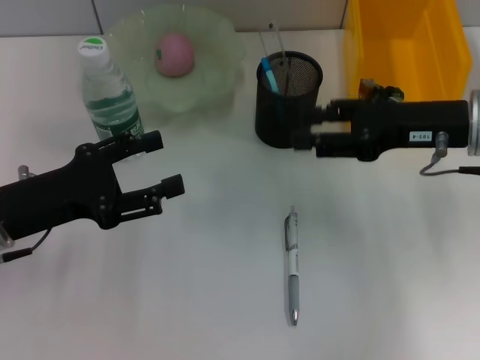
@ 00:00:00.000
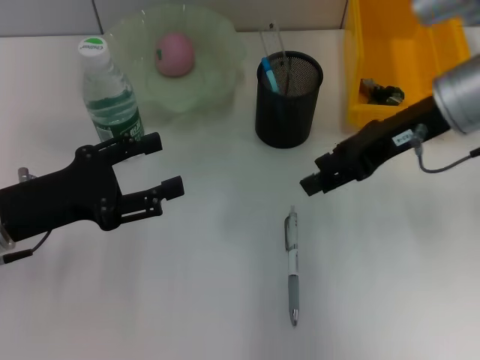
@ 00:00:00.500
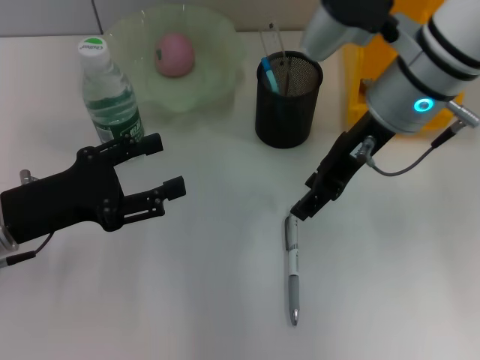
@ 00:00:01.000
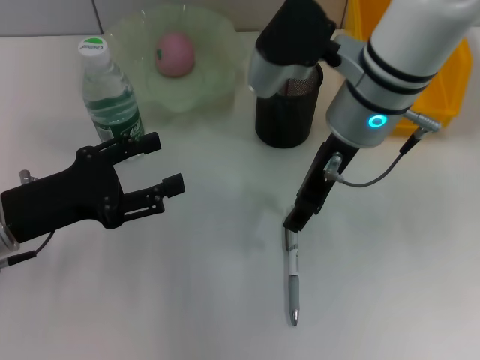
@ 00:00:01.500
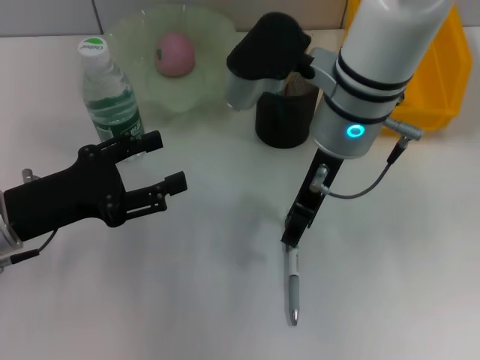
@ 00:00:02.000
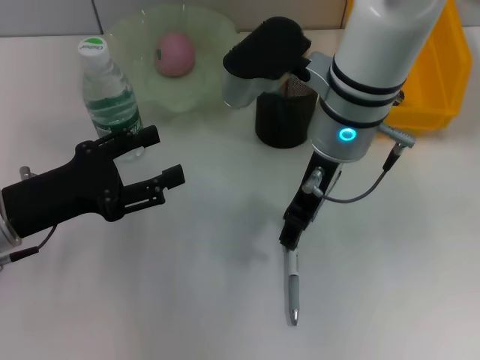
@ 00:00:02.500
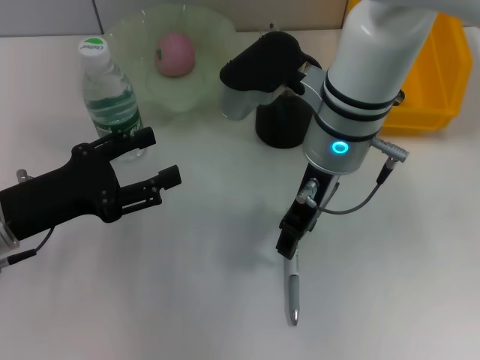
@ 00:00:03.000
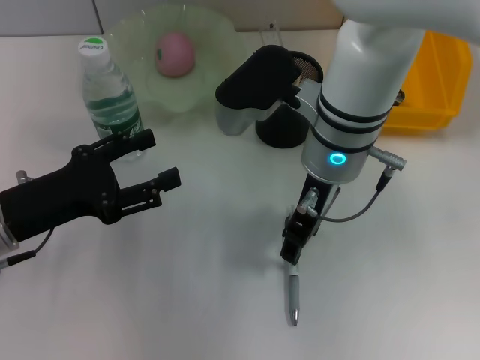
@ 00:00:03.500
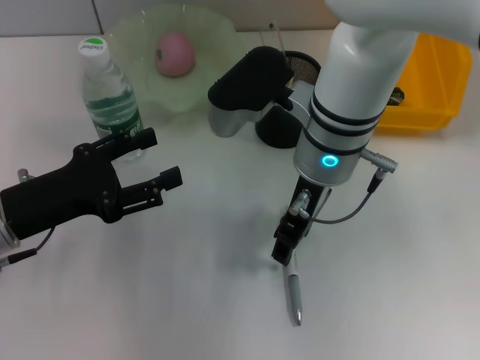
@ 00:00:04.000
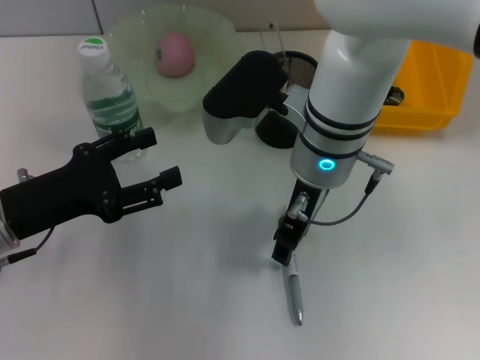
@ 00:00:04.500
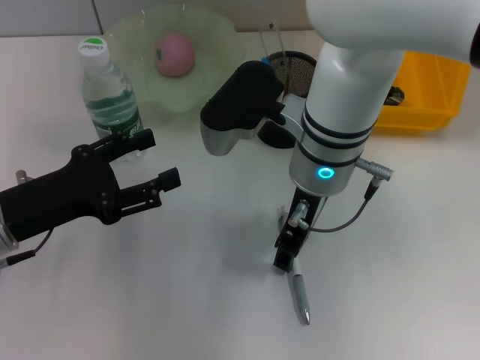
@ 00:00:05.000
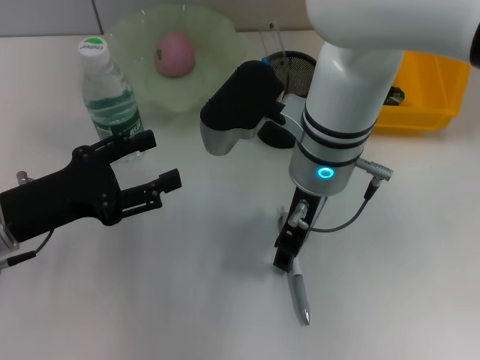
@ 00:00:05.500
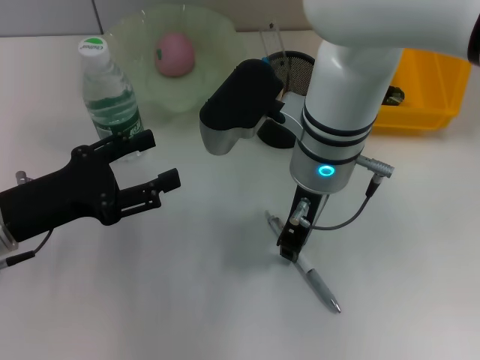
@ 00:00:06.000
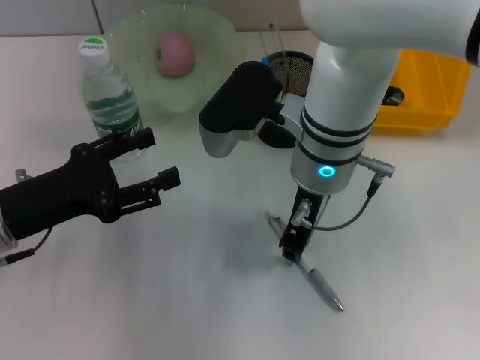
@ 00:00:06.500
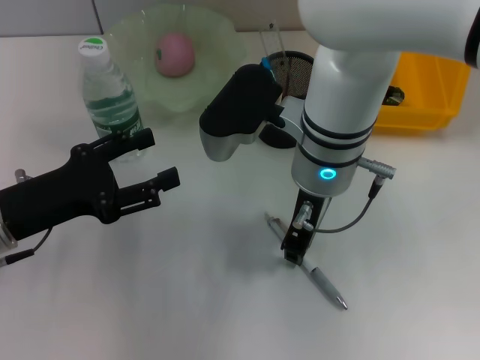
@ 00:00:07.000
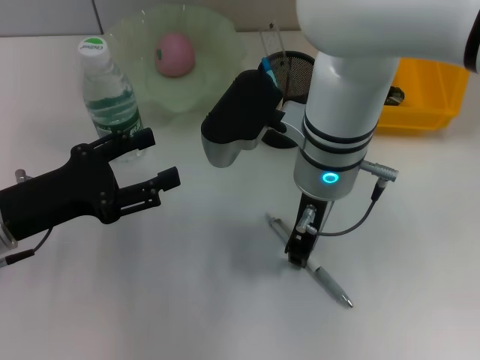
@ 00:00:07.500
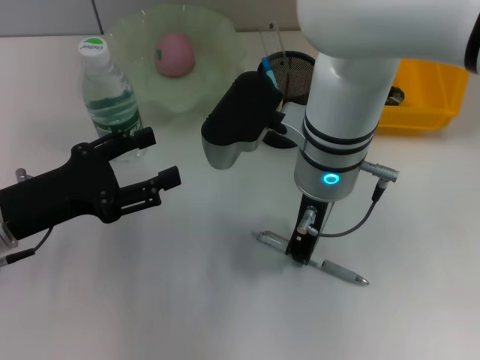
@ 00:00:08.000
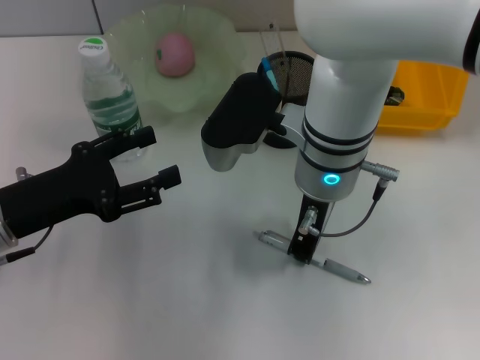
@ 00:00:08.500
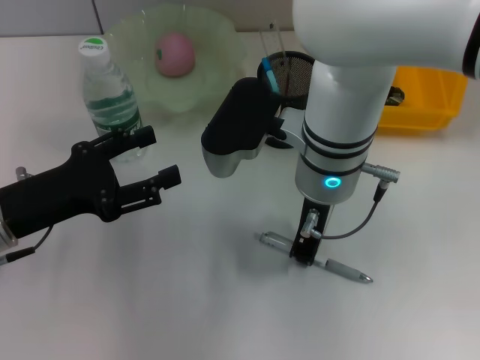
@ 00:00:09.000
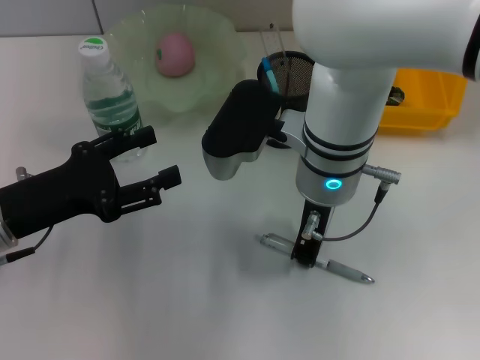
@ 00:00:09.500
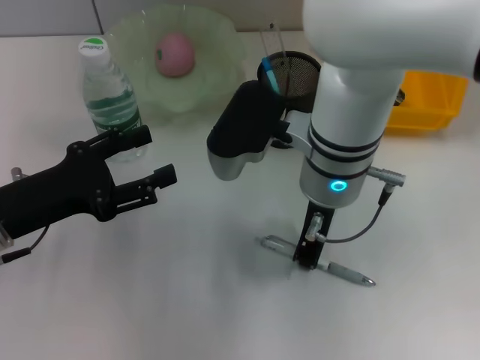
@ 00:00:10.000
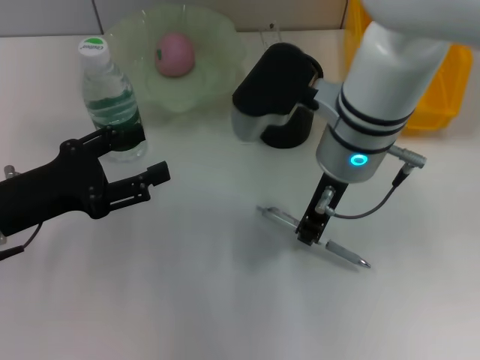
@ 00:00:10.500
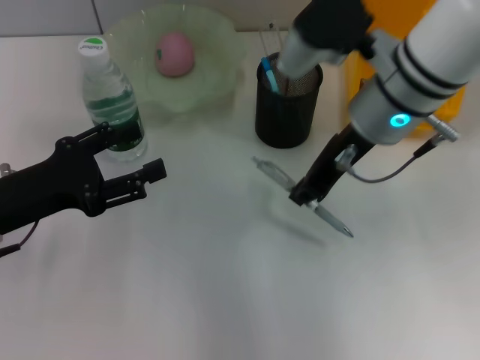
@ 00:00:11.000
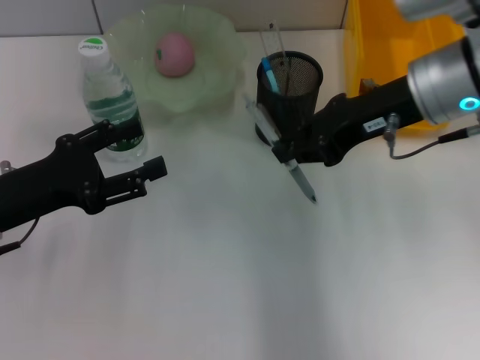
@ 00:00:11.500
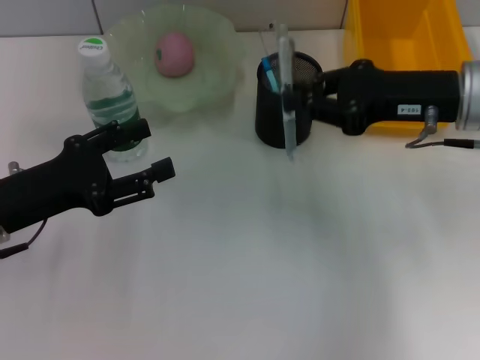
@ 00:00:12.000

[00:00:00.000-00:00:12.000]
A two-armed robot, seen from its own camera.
Step, 00:00:00.000 to 00:00:08.000: Grab the gray spring-action pen with the right hand.
00:00:00.000 to 00:00:02.000: The right gripper moves to the left, some 15 cm.
00:00:02.000 to 00:00:06.000: The grippers stay close to where they were, moving slightly.
00:00:06.000 to 00:00:08.000: The right gripper closes.
00:00:08.000 to 00:00:10.000: Both grippers stay about where they are.
00:00:10.000 to 00:00:12.000: The right gripper goes about 15 cm to the right.

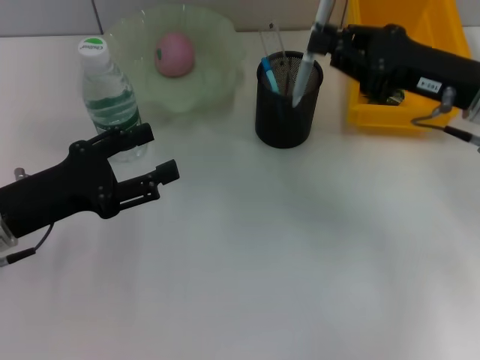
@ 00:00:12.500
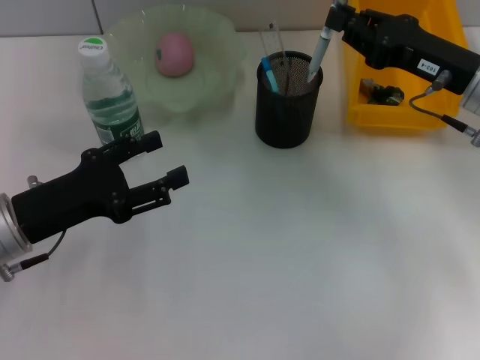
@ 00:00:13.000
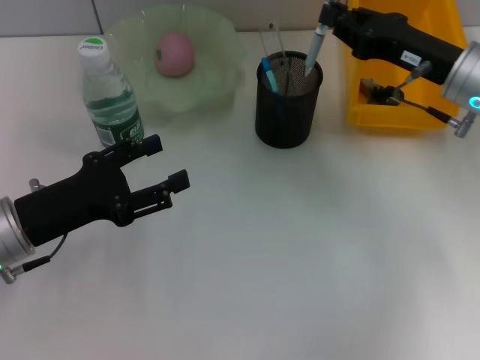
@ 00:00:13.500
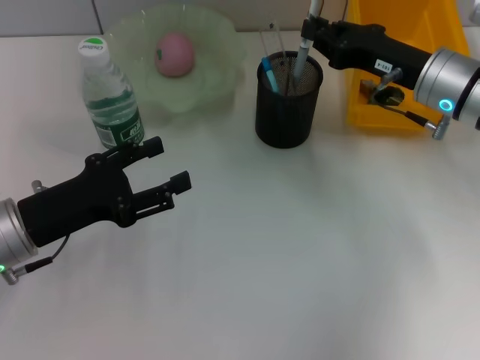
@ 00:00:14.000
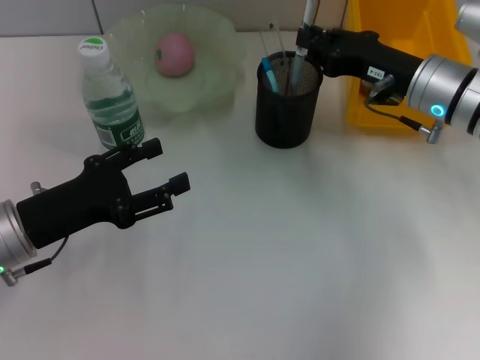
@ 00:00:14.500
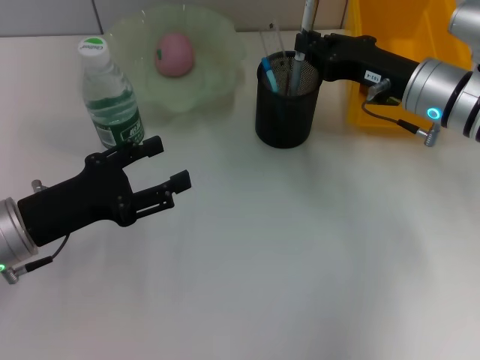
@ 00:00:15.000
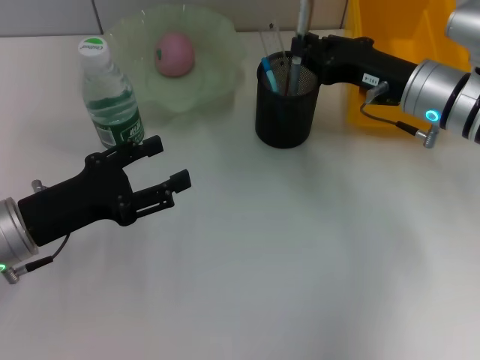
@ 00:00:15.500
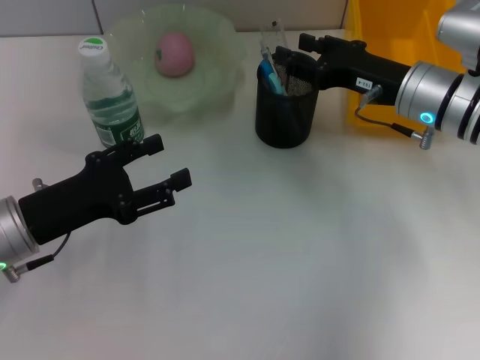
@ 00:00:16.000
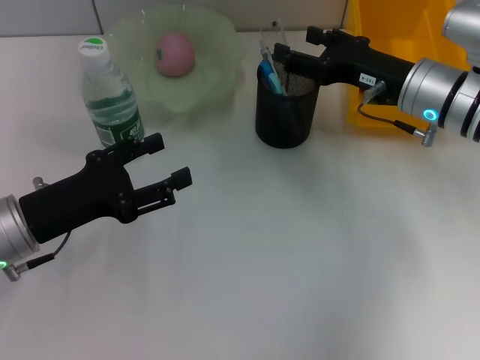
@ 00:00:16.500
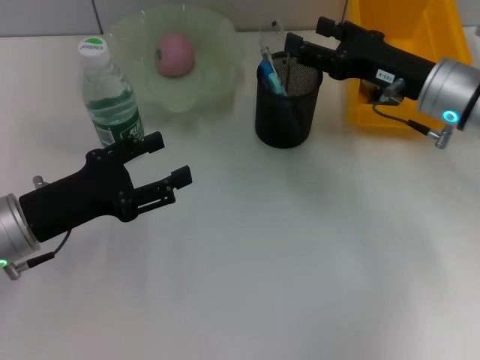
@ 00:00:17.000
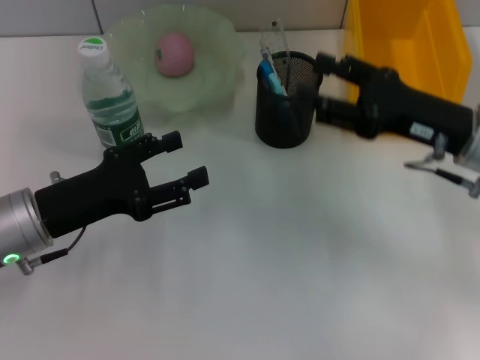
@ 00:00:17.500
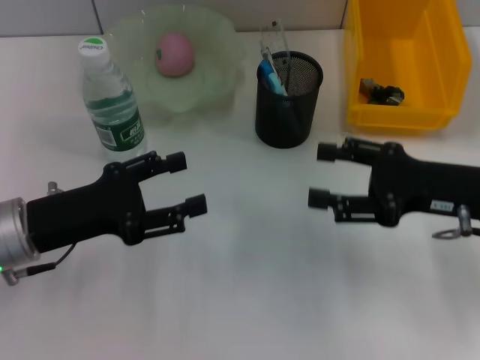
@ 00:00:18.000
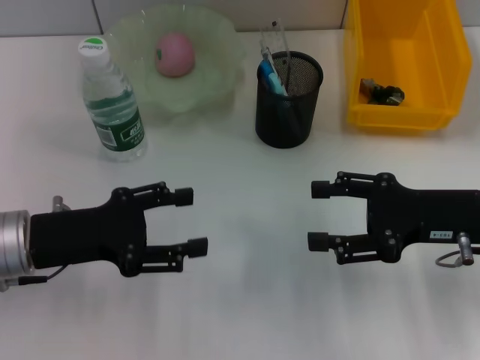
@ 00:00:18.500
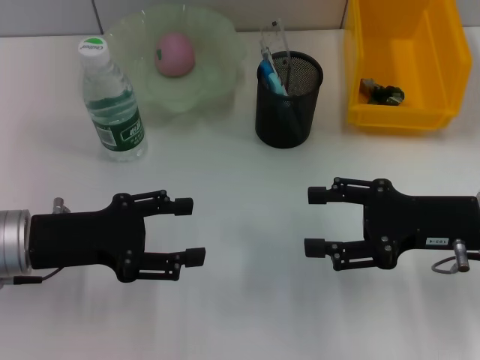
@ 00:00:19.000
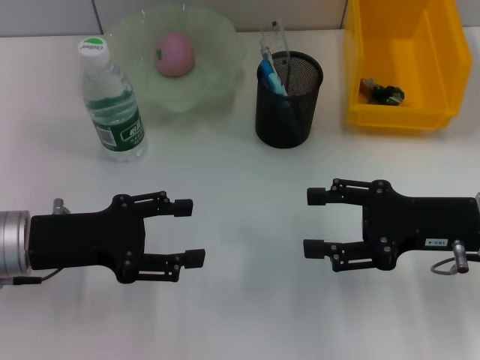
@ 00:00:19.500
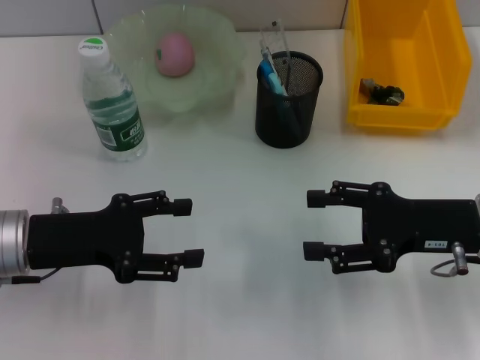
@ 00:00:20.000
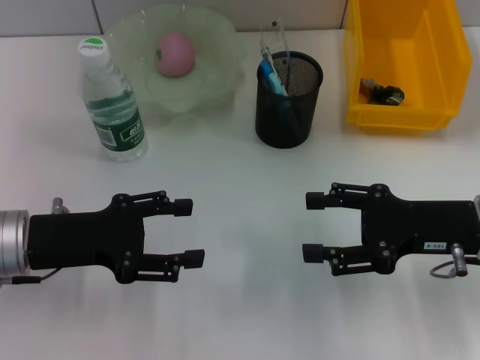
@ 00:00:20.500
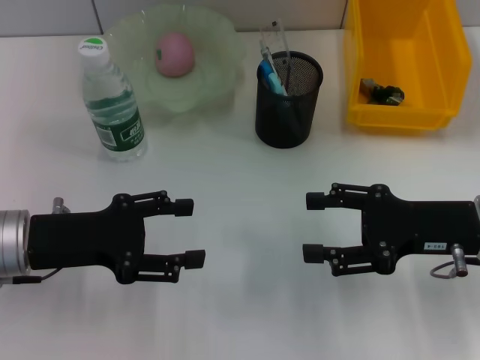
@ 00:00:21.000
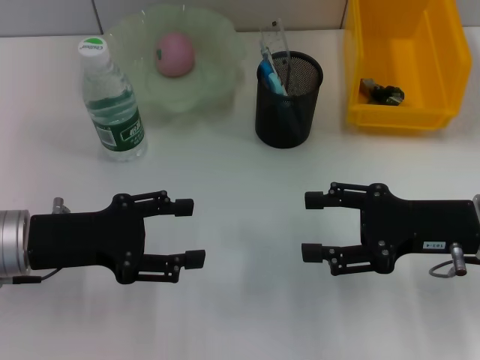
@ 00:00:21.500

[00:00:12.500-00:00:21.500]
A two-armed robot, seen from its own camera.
Step, 00:00:12.500 to 00:00:16.000: Place the gray spring-action pen into the pen holder with the right hand.
00:00:12.500 to 00:00:14.500: The right gripper ends up some 5 cm from where it was.
00:00:14.500 to 00:00:17.000: The right gripper opens its fingers.
00:00:17.000 to 00:00:19.500: The right gripper travels backward by some 10 cm.
00:00:19.500 to 00:00:21.500: The two grippers keep their place.
